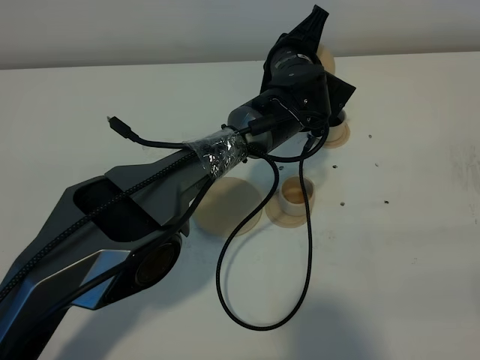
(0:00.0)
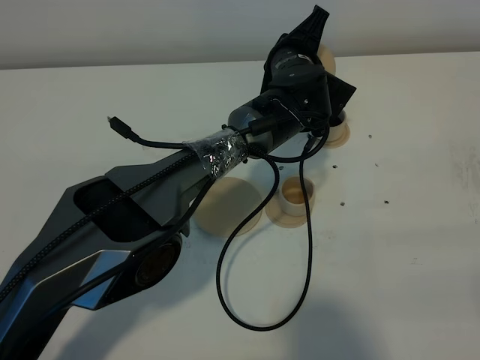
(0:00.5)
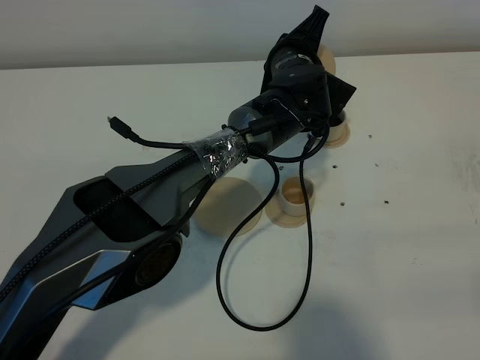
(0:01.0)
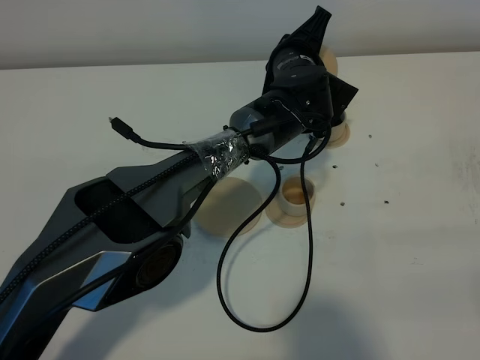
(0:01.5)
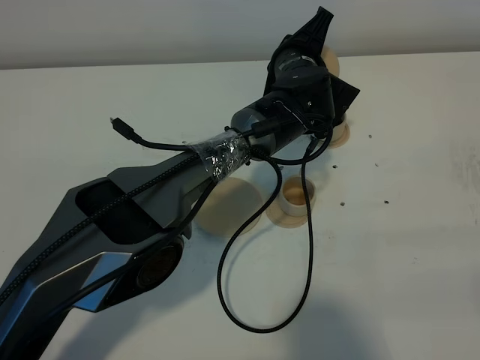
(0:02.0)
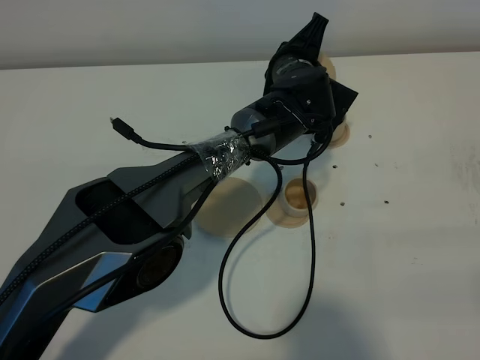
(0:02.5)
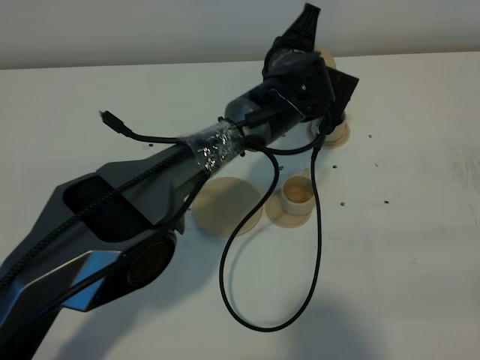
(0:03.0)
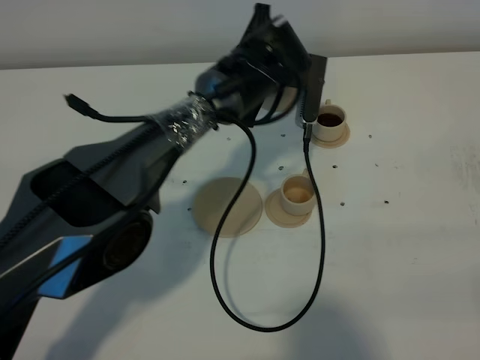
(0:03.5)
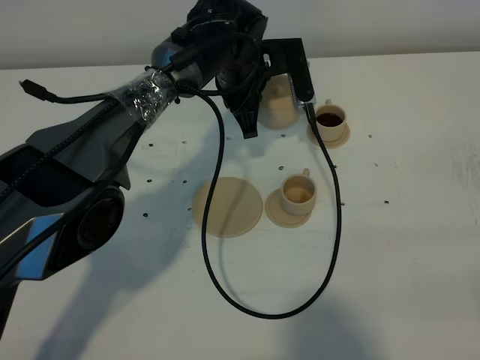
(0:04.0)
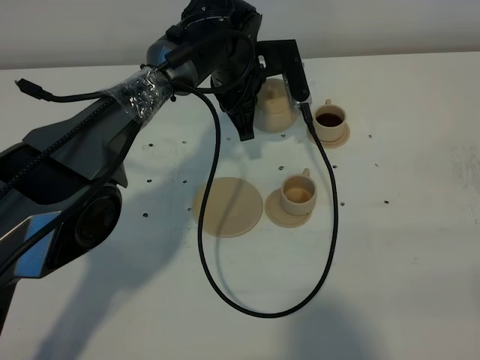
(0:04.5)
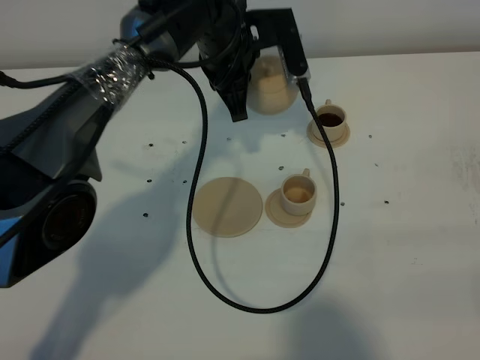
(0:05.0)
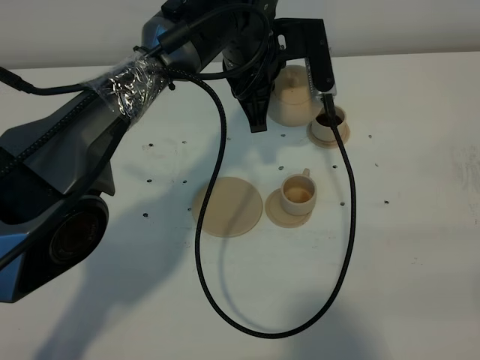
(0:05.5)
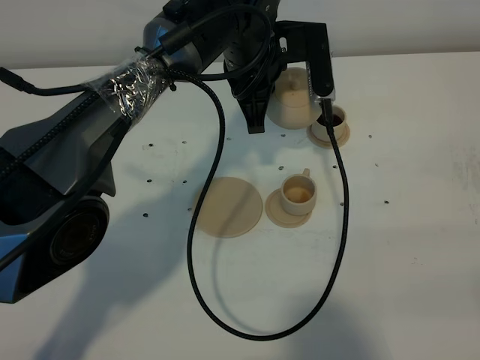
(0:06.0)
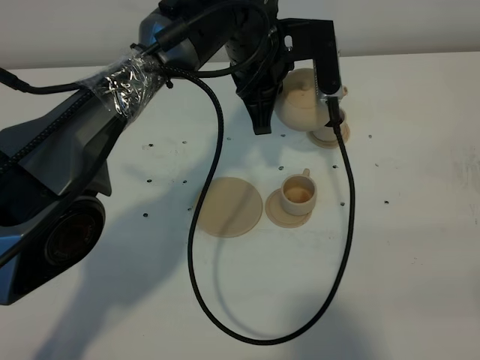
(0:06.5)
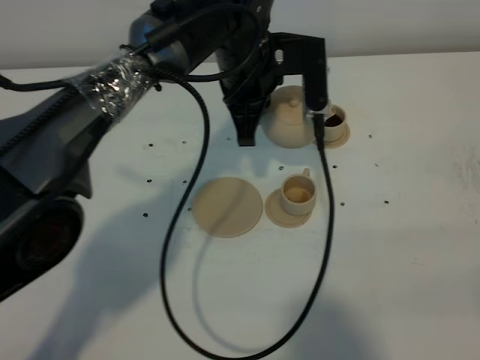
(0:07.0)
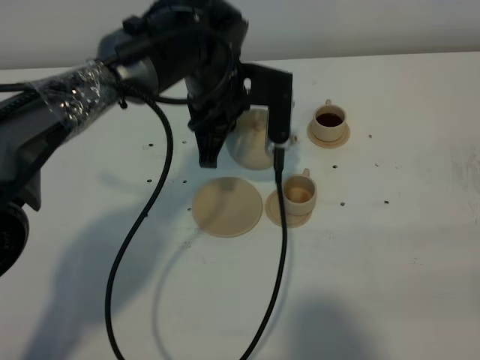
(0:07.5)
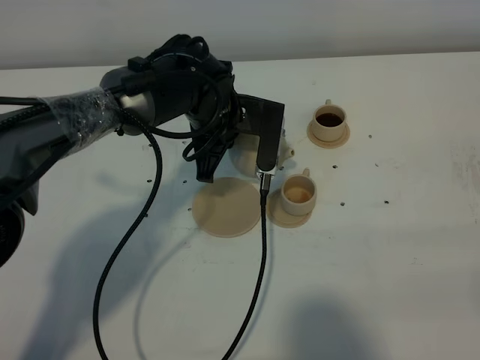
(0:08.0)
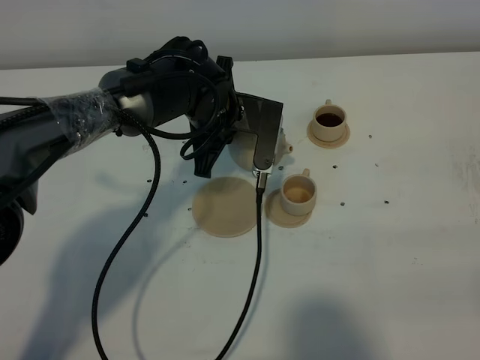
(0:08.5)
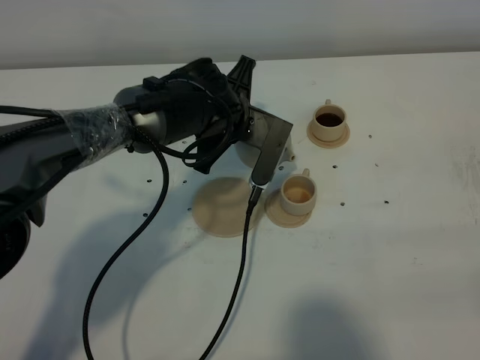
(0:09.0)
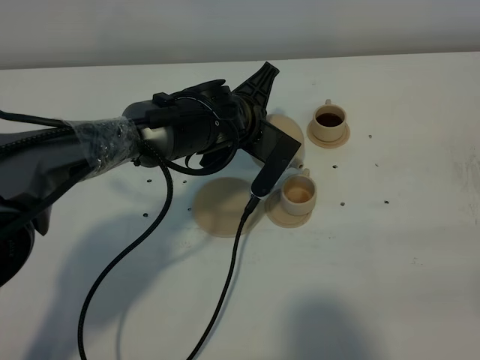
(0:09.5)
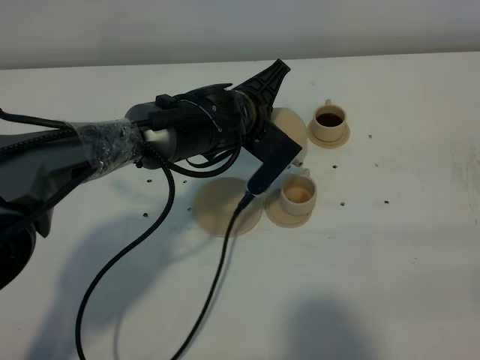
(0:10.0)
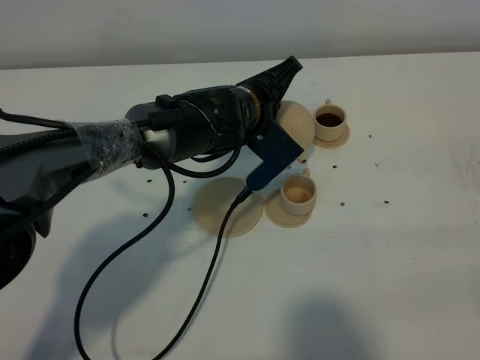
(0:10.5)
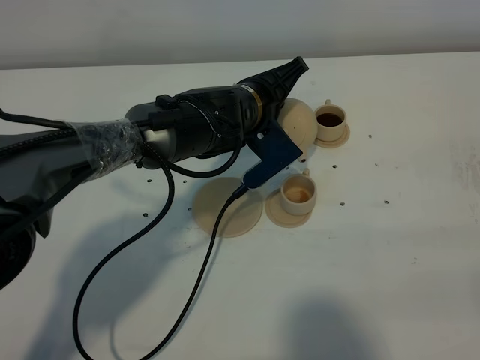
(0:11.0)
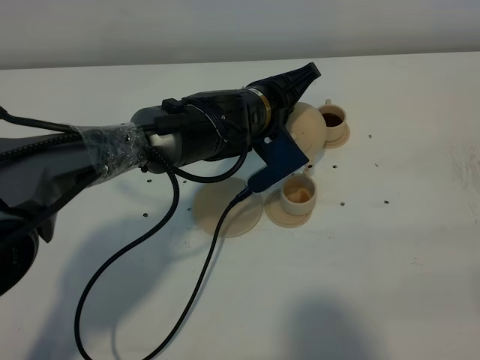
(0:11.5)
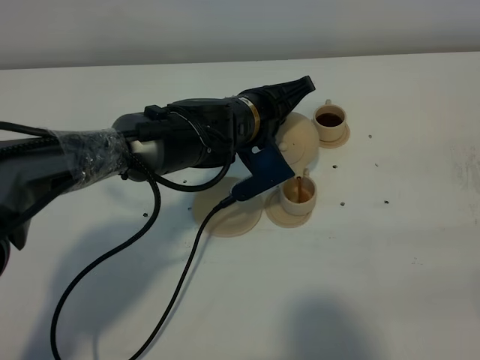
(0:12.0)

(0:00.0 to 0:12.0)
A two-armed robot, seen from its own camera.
Task of the whole recording: grasp the brown teapot and pour the tea into the two brown teacups one by one, put the brown teapot back in its original place.
0:00.0 - 0:02.0: Both grippers stay about where they are.
0:02.0 - 0:04.0: The left gripper goes approximately 10 cm to the left.
0:04.0 - 0:06.0: The left gripper heads upward, covering about 5 cm.
0:06.0 - 0:08.0: The left gripper moves downward and to the left, approximately 10 cm.

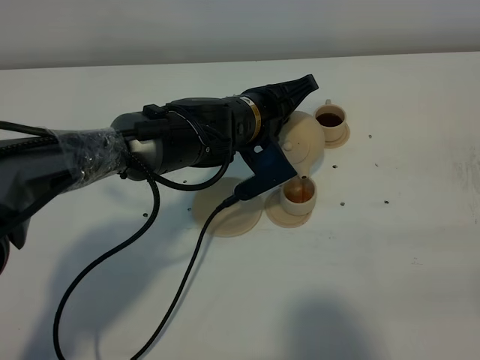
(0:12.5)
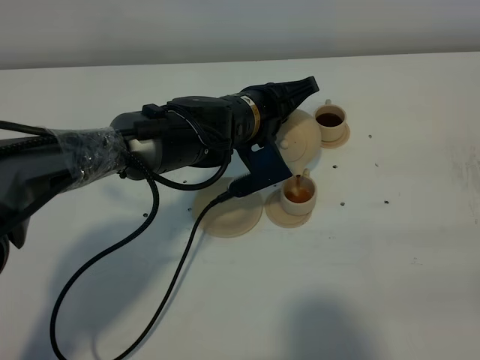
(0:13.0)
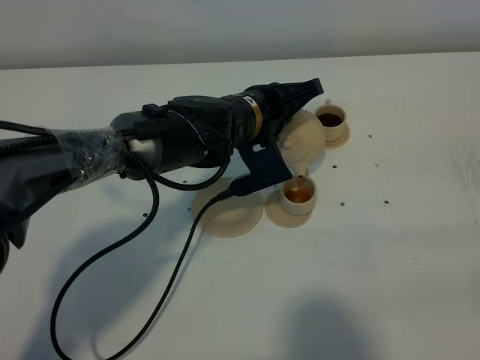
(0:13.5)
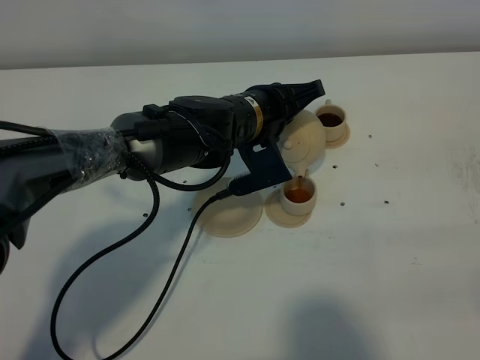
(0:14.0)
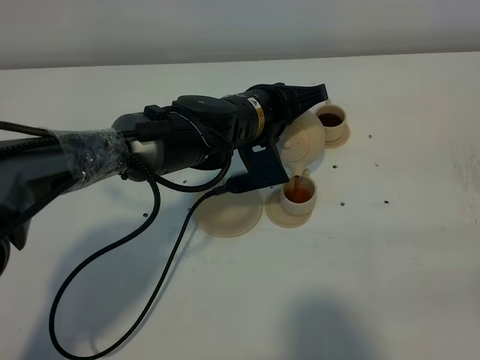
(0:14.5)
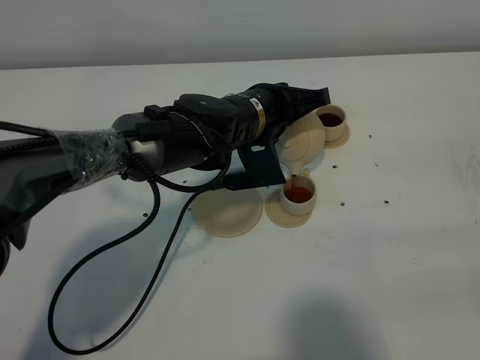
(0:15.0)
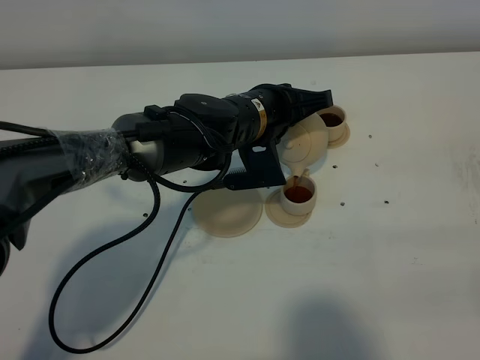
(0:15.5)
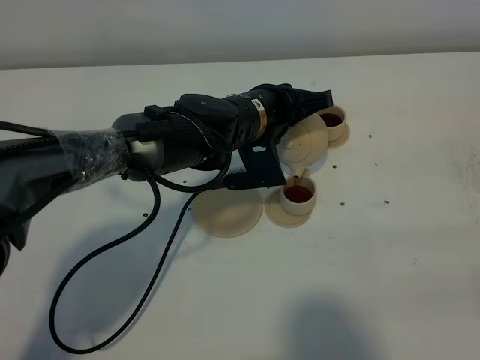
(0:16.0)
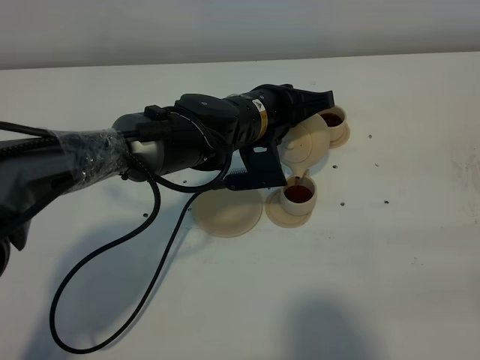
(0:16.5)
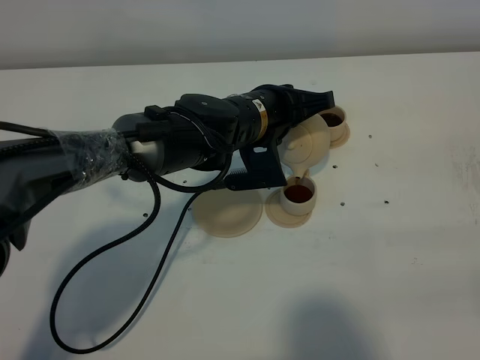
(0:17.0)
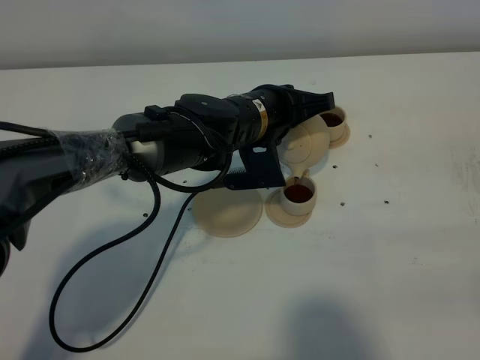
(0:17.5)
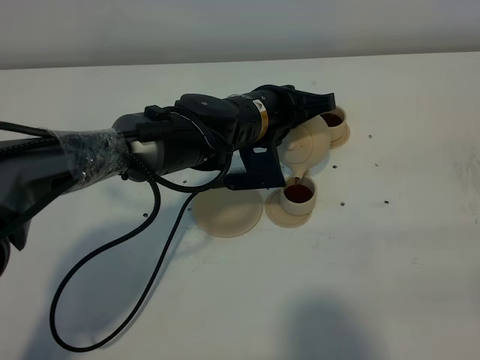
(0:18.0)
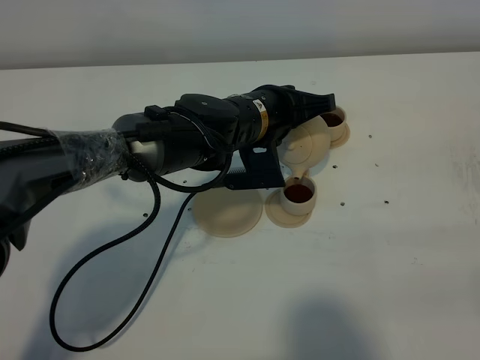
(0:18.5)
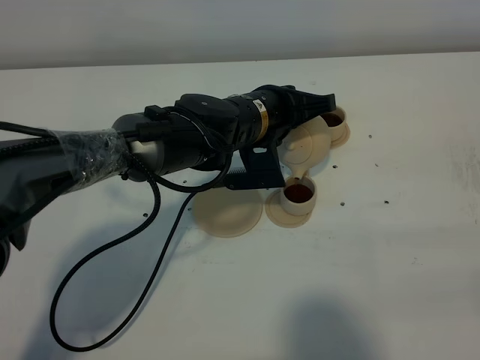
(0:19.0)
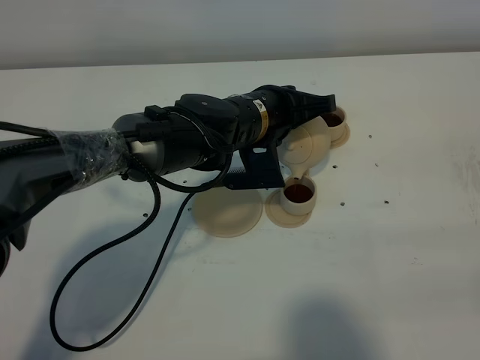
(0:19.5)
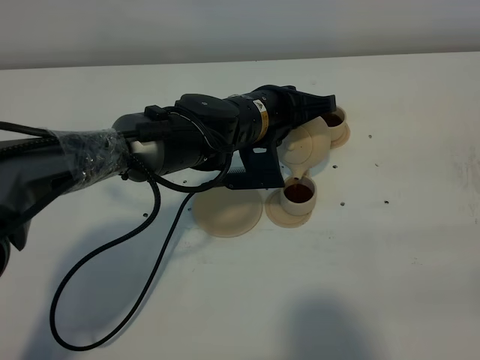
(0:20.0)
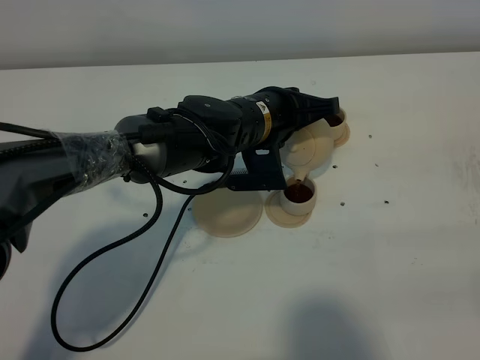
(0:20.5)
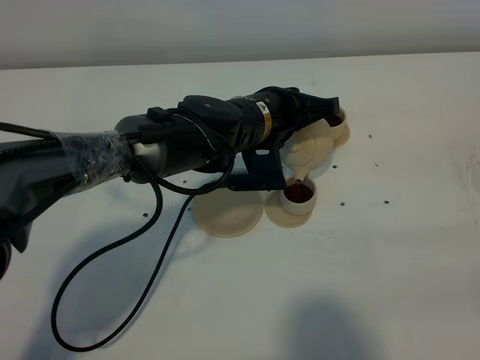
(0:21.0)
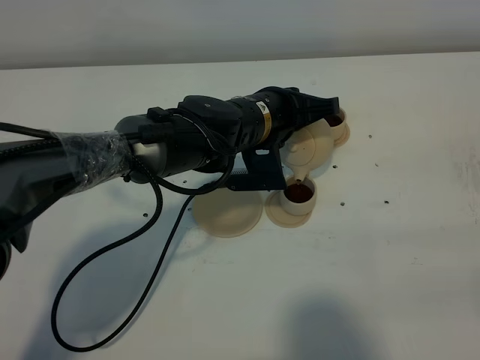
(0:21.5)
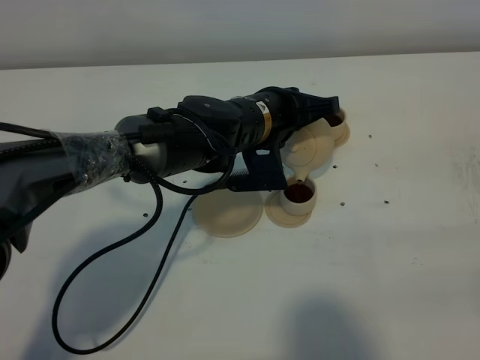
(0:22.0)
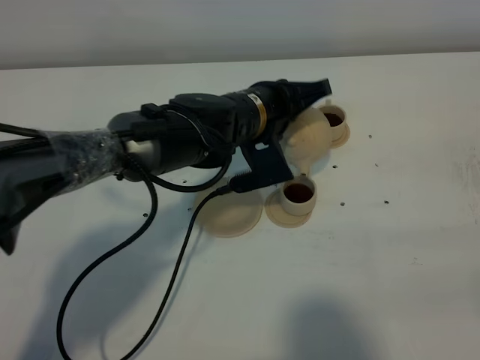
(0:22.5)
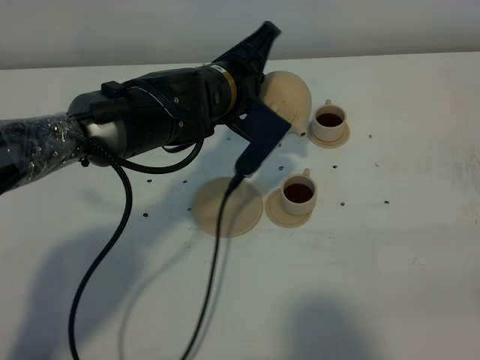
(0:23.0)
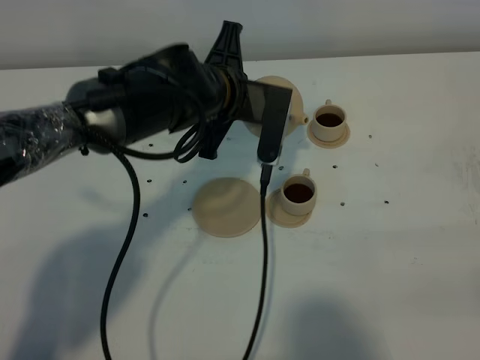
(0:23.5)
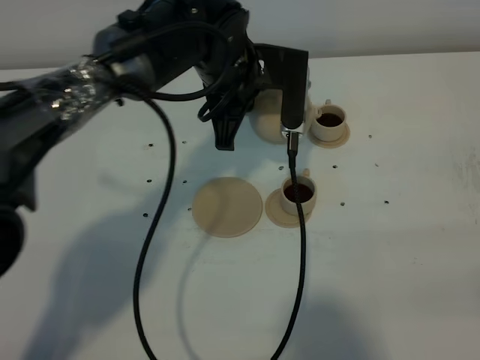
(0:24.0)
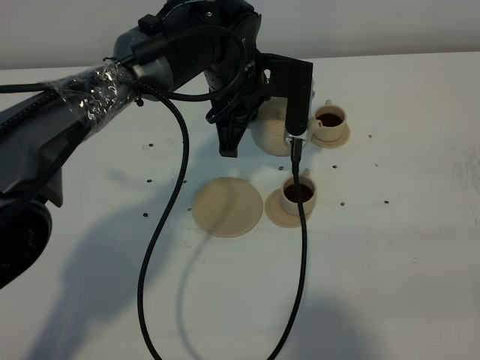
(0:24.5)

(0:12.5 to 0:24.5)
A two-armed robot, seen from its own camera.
Task of the whole recording: grasp the brown teapot and pour the tea into the two brown teacups one by one, put the brown teapot back in its original place.
Step, 0:12.5 - 0:22.5: Pour tea into the teacup with the left gripper.
0:12.5 - 0:16.5: The grippers move only a little.
0:16.5 - 0:20.5: Both grippers stay put.
0:20.5 - 0:22.5: The grippers move only a little.
0:22.5 - 0:24.5: The left gripper changes place by about 5 cm.

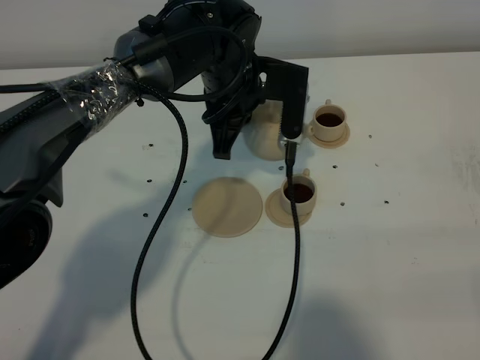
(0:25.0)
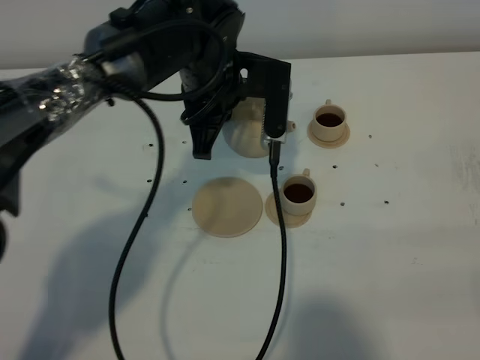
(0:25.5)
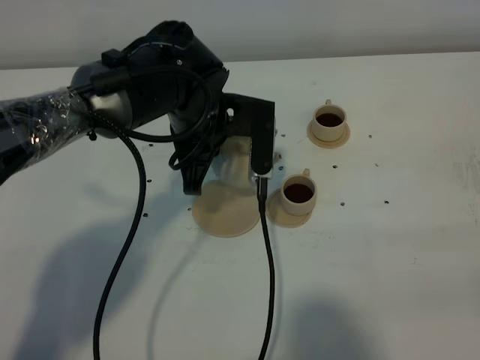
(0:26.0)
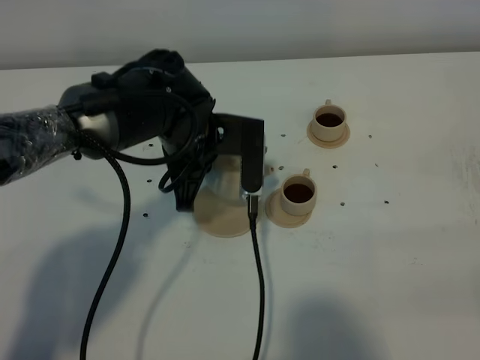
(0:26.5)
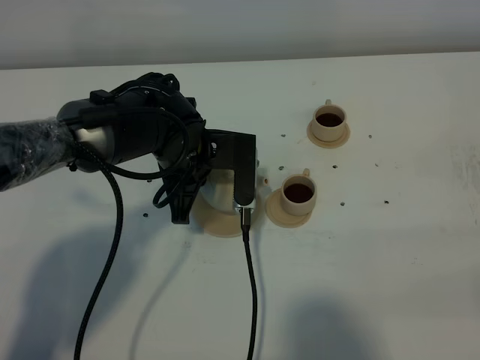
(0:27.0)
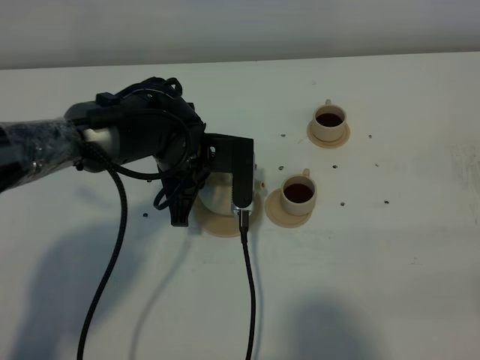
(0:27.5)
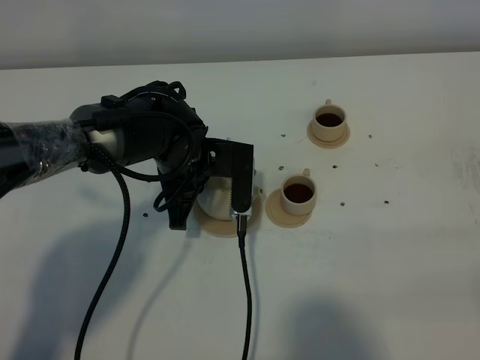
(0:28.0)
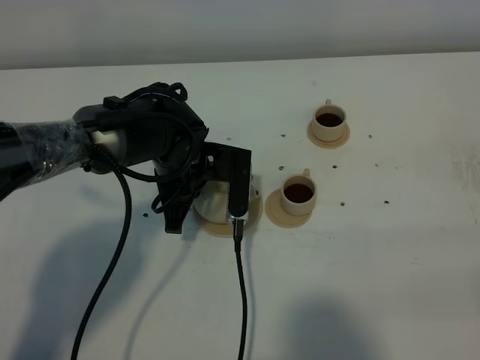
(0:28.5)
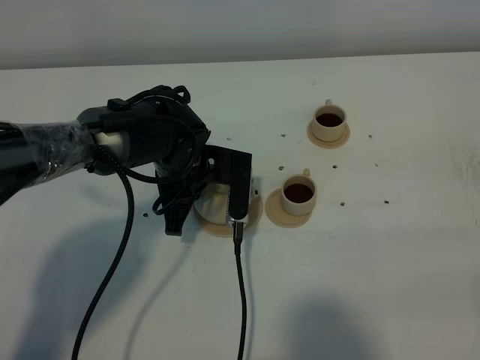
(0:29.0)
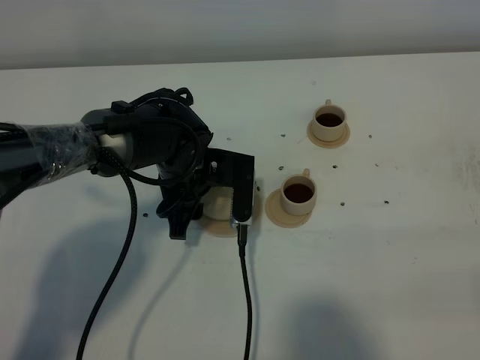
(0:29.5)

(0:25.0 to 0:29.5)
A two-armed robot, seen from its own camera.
Task of the whole recording: grasp the brown teapot and pour the tea into the two brown teacups one by one, put the brown teapot back in its original place.
0:25.0 - 0:27.0: The left gripper goes roughly 10 cm to the left, downward and backward.
0:27.0 - 0:29.5: The left gripper opens its fingers.
